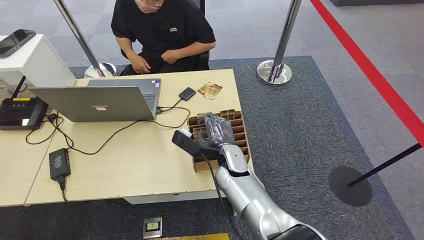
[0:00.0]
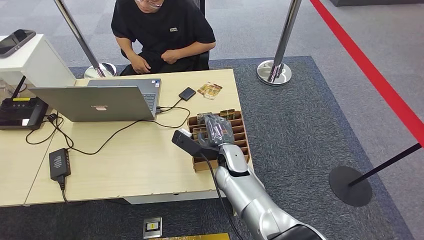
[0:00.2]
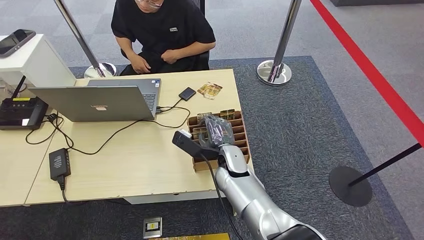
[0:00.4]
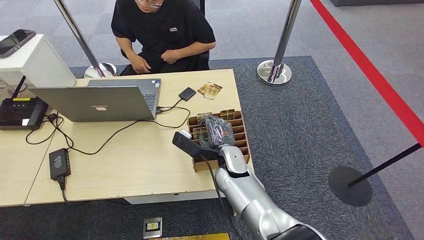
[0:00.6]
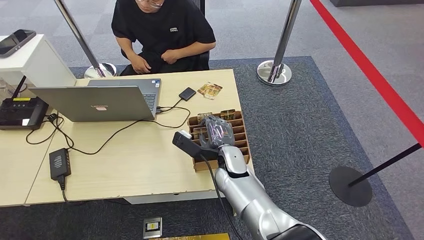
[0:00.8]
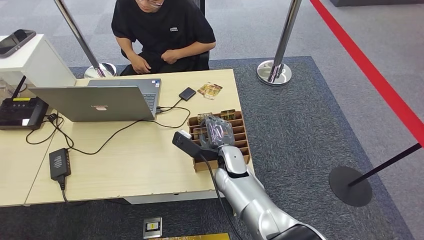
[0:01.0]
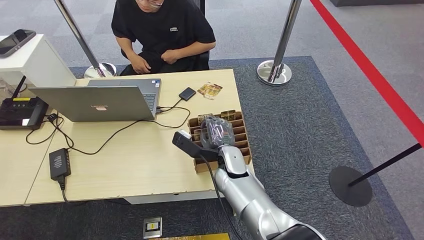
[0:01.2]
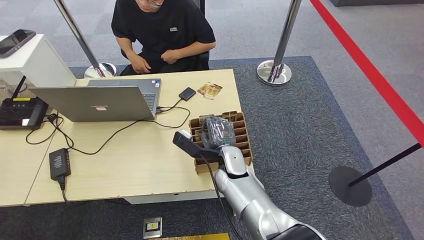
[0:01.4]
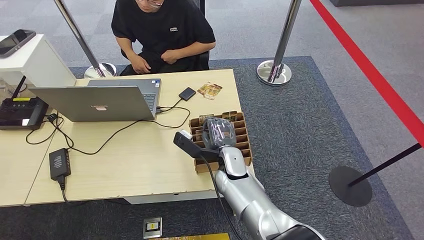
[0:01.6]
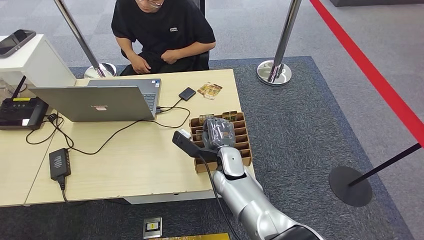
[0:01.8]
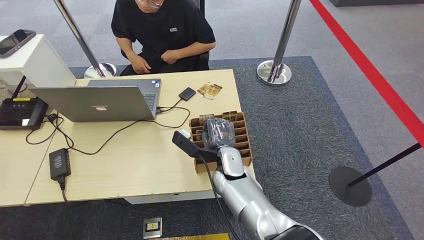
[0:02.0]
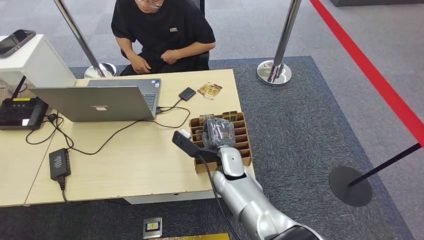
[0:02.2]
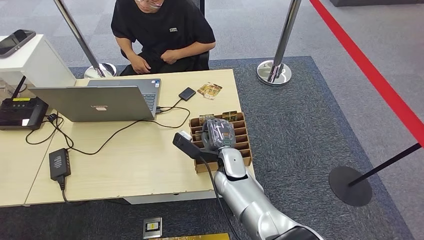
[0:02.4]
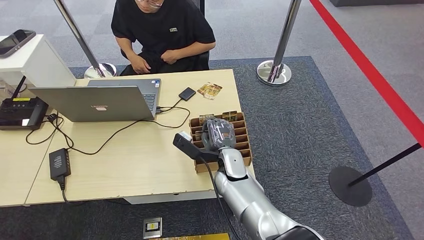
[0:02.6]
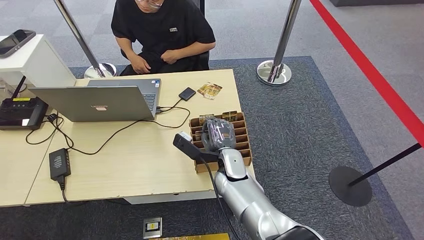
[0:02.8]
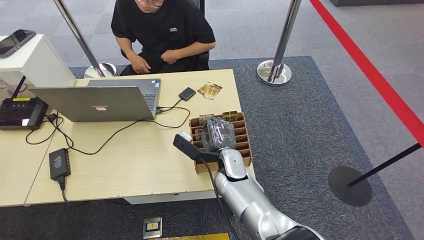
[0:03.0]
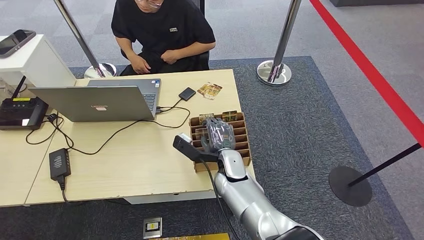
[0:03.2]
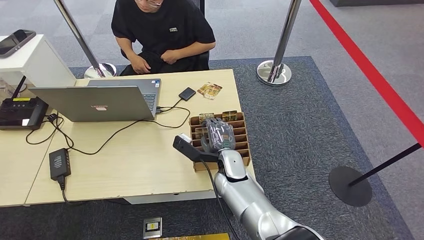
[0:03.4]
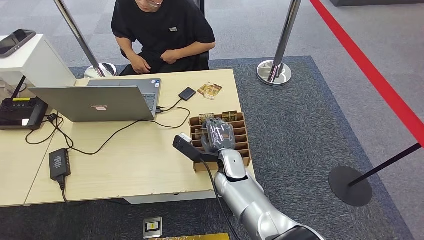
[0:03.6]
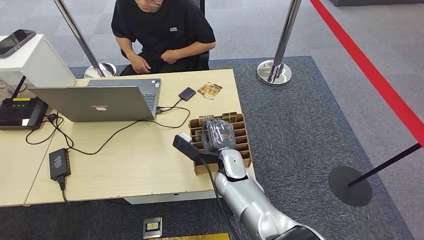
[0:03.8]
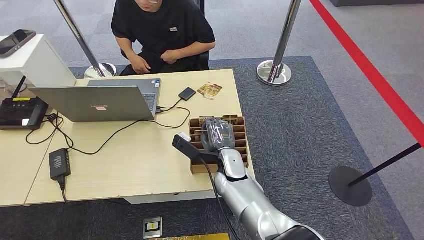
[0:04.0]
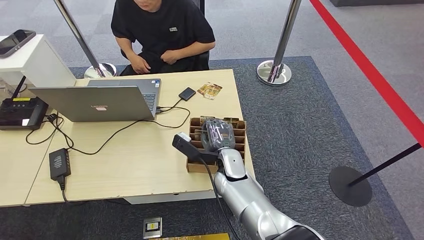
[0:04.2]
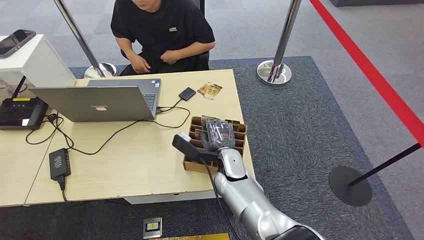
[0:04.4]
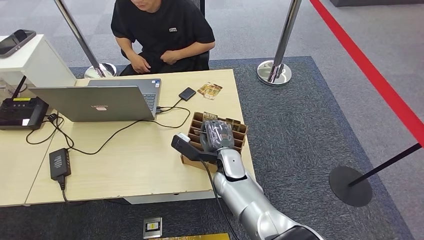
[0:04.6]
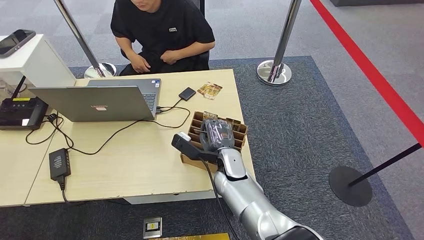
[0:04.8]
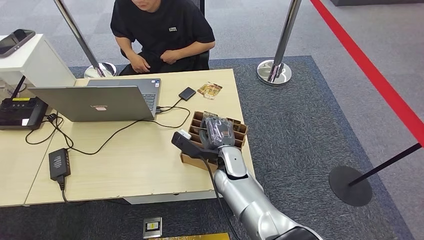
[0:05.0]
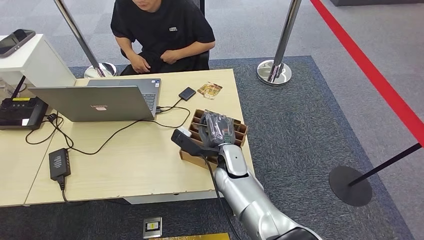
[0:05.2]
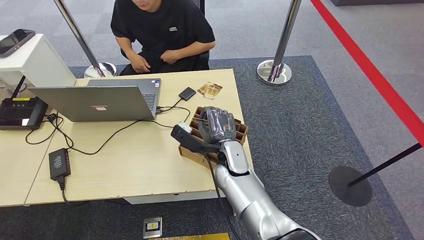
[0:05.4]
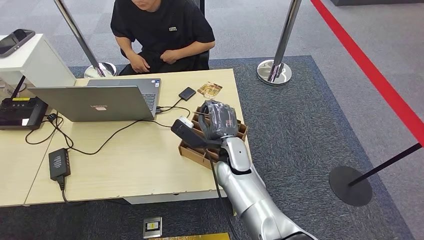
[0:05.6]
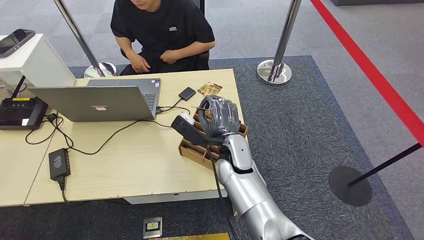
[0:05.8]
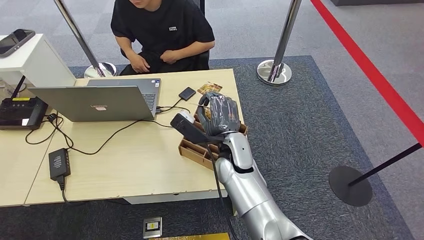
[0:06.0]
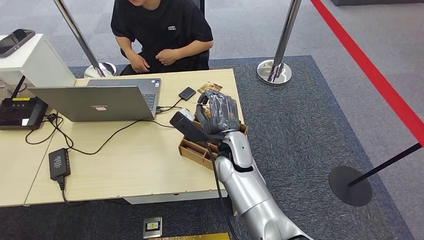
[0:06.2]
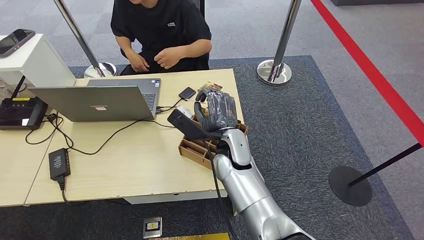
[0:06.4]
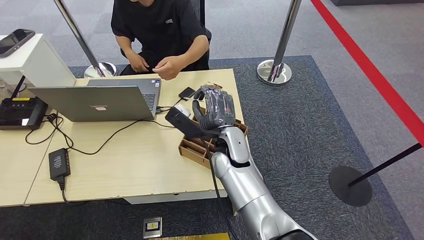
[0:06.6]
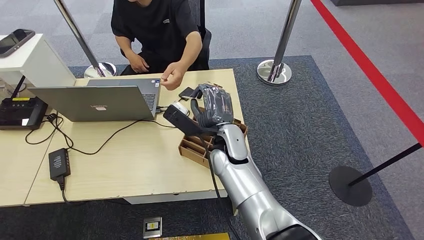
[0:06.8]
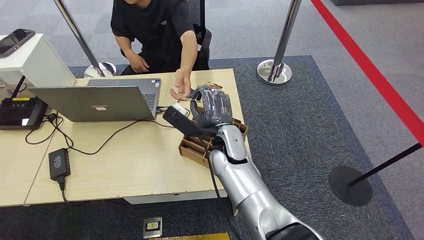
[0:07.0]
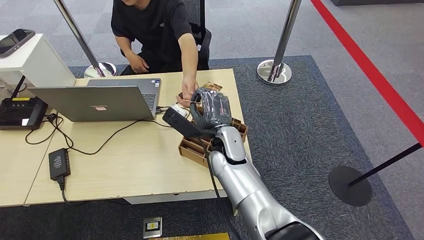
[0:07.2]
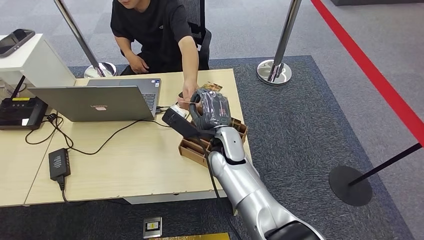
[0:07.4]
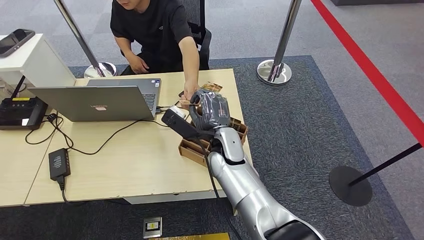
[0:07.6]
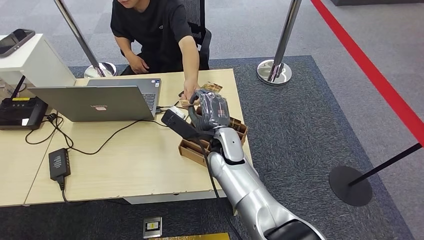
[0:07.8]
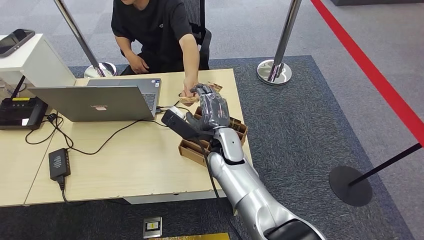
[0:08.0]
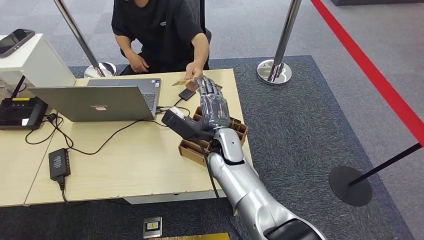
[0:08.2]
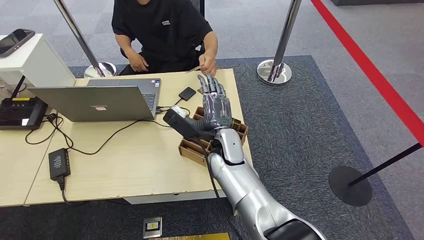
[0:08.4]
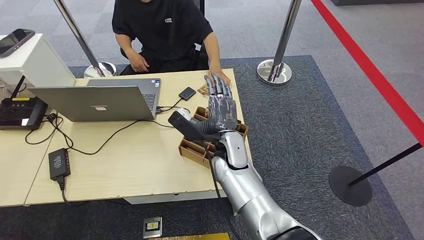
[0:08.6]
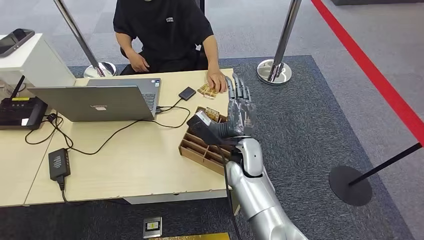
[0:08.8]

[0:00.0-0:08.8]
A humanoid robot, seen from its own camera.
Step, 0:00.0 to 0:06.2: Pick up the key card from the card box.
Step, 0:06.6 to 0:08.6: Hand the key card to the target.
0:01.4 to 0:04.4: Both hands stay about where they are.
0:04.4 to 0:05.8: The right hand goes some 5 cm upward.
0:05.8 to 0:08.8: The hands move only a little.
